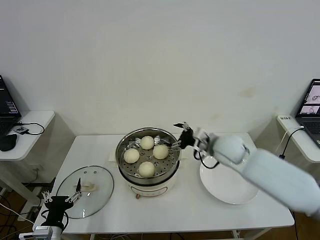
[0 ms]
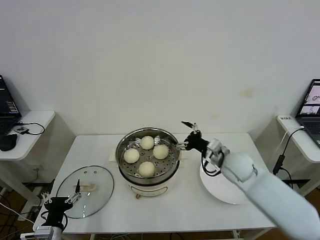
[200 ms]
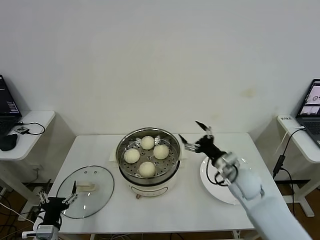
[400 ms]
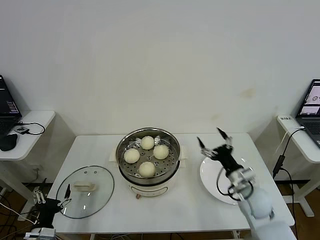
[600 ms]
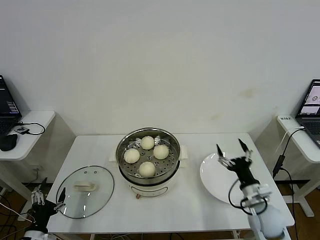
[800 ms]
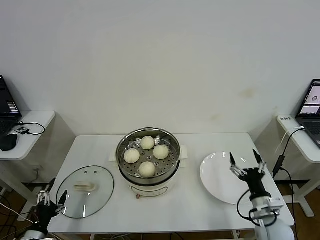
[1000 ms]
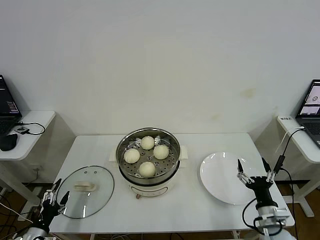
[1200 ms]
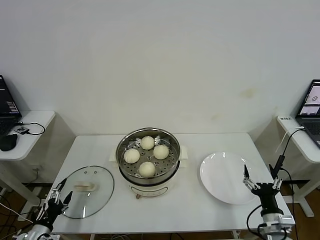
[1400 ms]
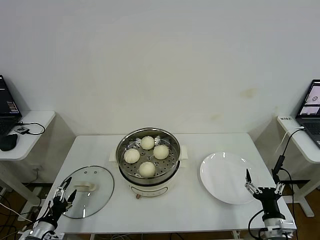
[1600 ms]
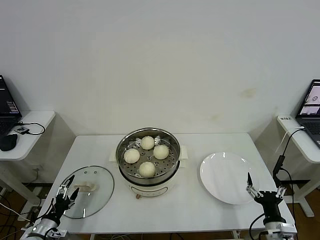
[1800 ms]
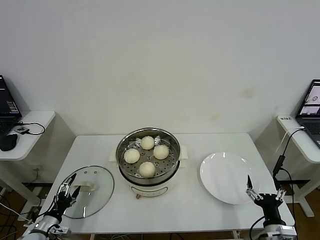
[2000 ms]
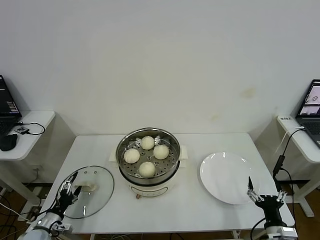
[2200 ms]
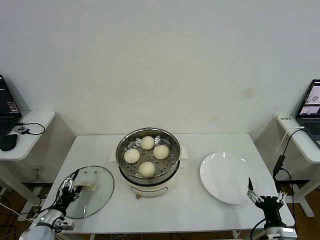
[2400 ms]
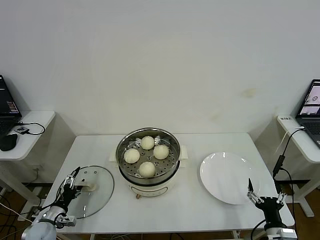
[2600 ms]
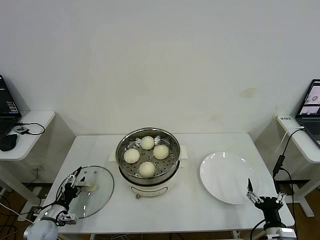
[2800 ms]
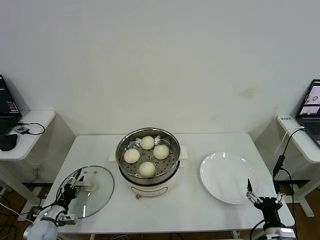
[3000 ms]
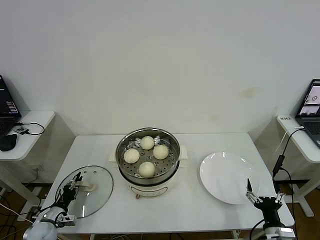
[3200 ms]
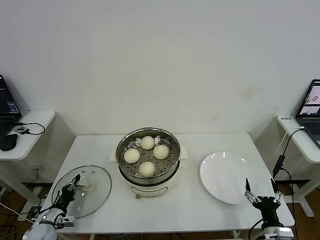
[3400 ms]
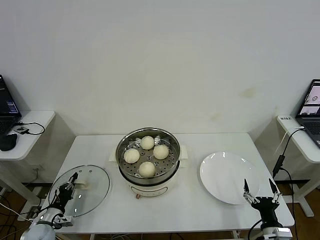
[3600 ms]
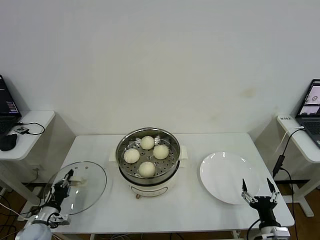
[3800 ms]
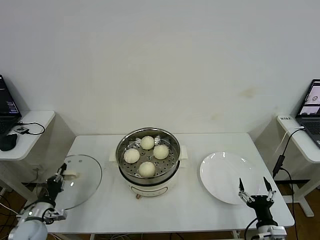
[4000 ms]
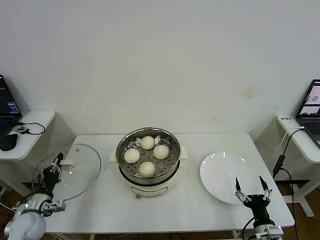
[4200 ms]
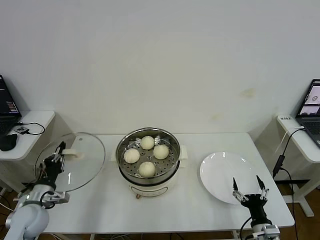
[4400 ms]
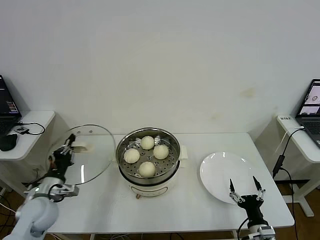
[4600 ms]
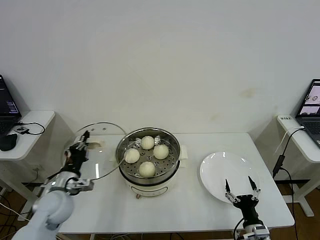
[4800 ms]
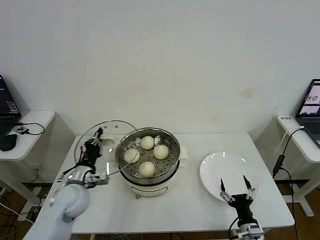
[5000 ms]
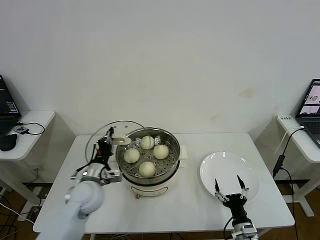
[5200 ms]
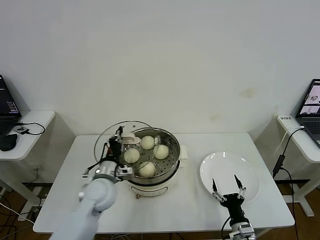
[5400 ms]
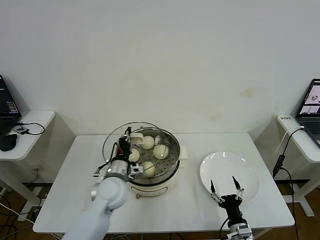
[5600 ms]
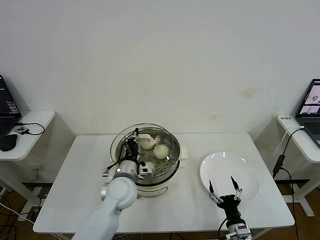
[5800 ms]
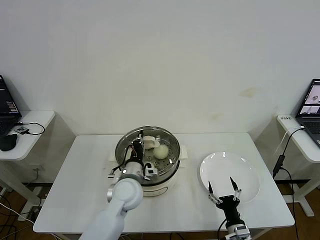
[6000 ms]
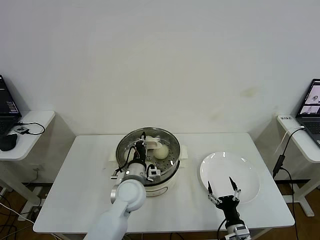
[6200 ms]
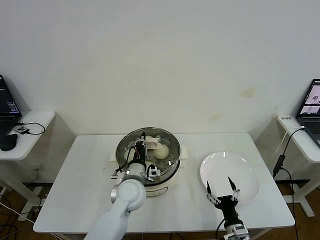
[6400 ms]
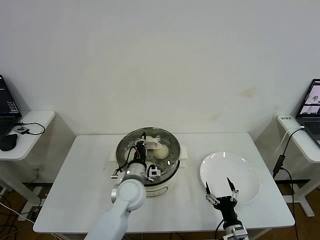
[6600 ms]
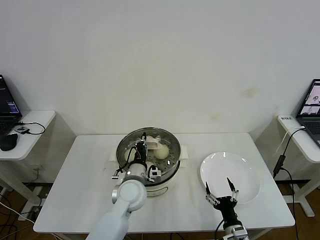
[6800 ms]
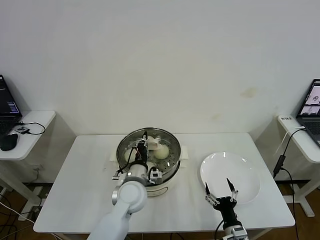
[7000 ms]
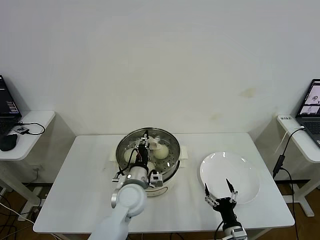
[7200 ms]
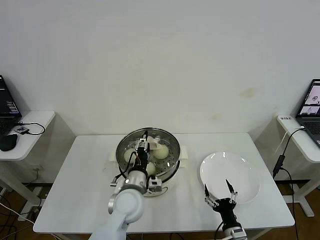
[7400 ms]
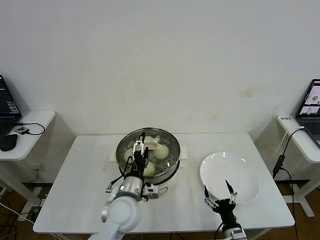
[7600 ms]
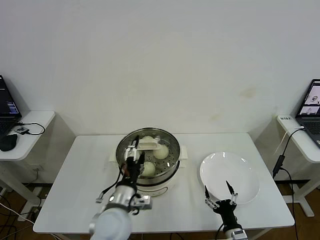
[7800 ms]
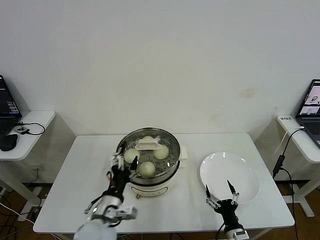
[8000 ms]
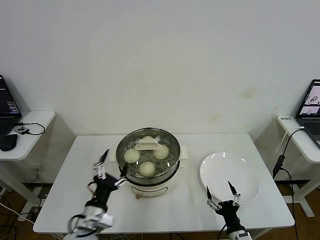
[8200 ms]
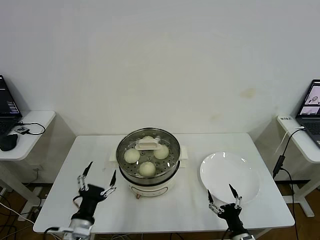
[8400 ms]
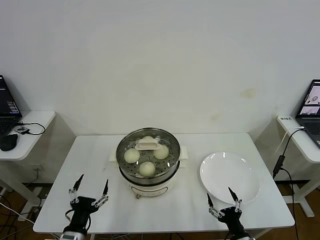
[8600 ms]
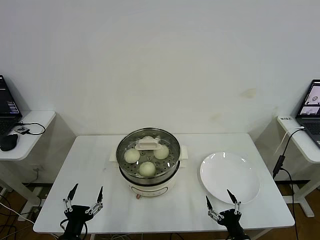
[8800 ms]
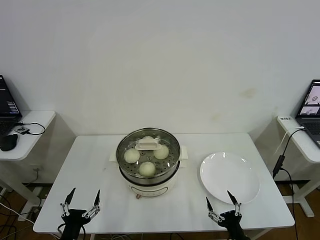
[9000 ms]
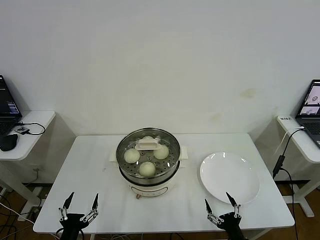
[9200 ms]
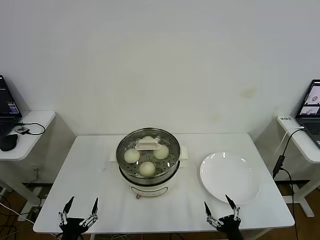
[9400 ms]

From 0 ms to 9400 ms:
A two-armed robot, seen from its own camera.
Step, from 0 ms to 3600 ms: Grasp the pot lid with left gripper.
Step, from 3800 ms to 7200 ms: Place the pot lid on the steamer with left gripper.
From 0 ms to 1600 ms: The right gripper shifts approximately 35 cm backward, downward and to the right. Meanwhile the left gripper heads to the left and downward, covering about 10 cm.
From 1600 ms to 3200 ms: The left gripper heads forward, covering roughly 10 cm, and closes its fingers.
From 3200 ms to 4800 ms: The left gripper goes roughly 20 cm upward and to the right, and closes up.
From 4800 ms to 6200 ms: The right gripper travels to the left by approximately 5 cm. The left gripper shifts some 25 cm to the right.
From 6200 ms to 7800 ms: The left gripper heads backward, covering some 10 cm, and opens its fingers.
From 7800 ms to 9400 ms: The right gripper travels backward by roughly 5 cm; the left gripper goes approximately 25 cm to the left, backward and downward.
